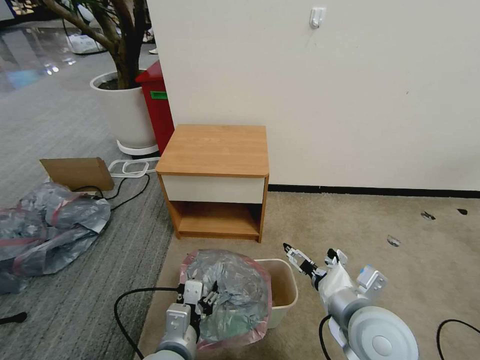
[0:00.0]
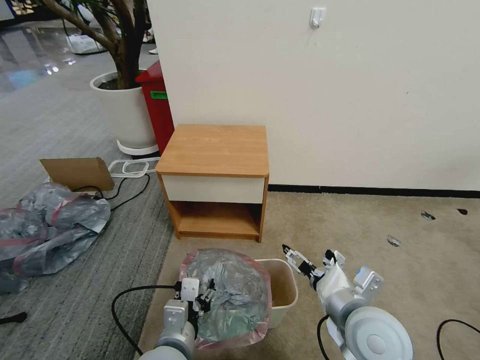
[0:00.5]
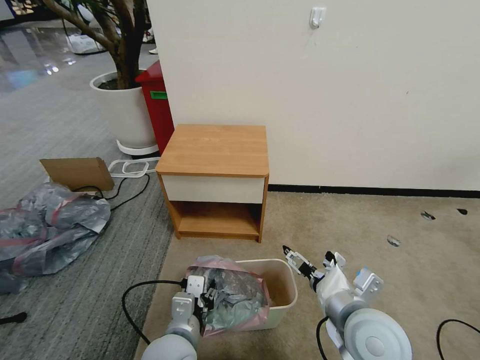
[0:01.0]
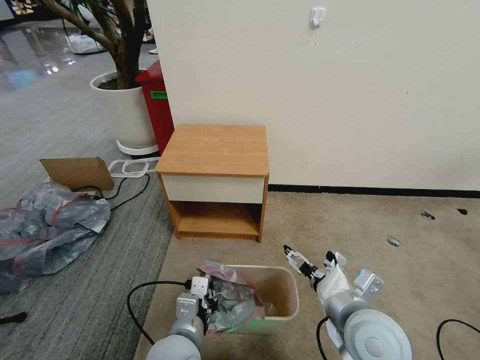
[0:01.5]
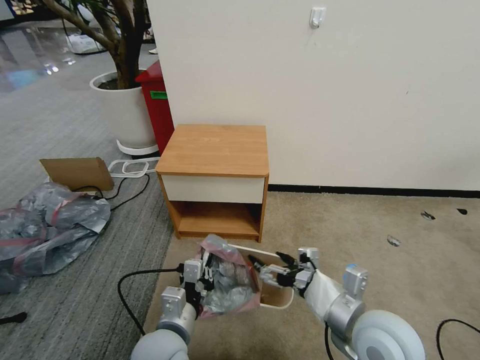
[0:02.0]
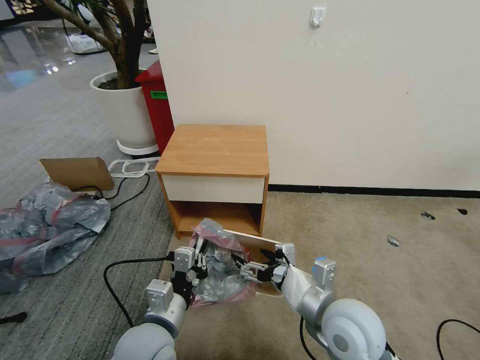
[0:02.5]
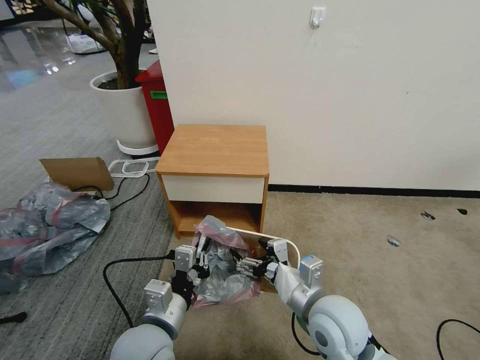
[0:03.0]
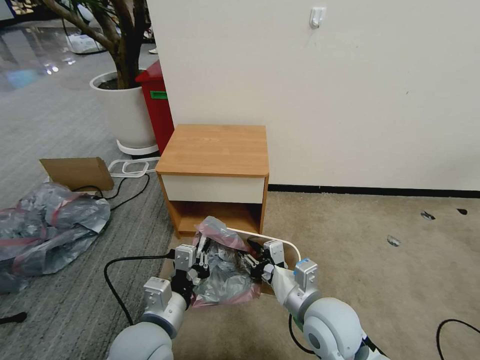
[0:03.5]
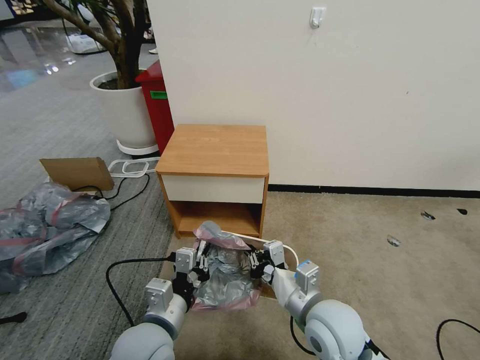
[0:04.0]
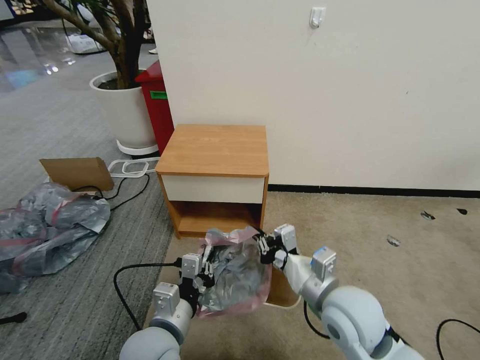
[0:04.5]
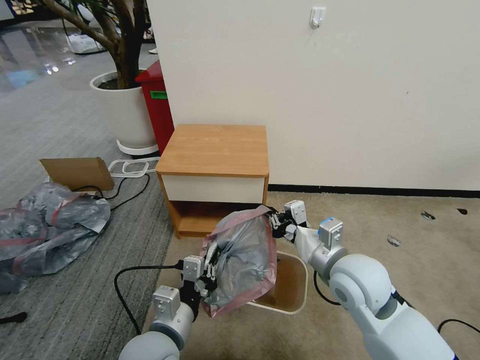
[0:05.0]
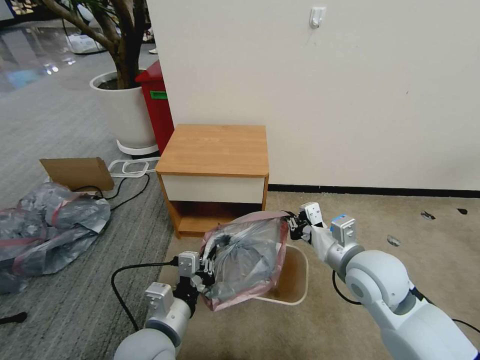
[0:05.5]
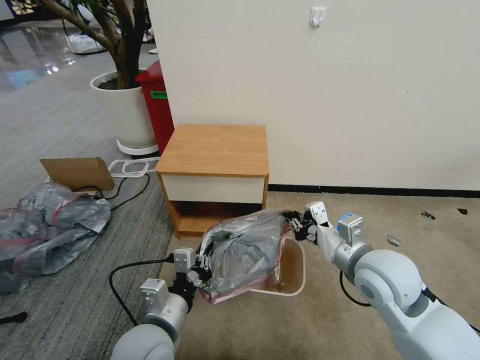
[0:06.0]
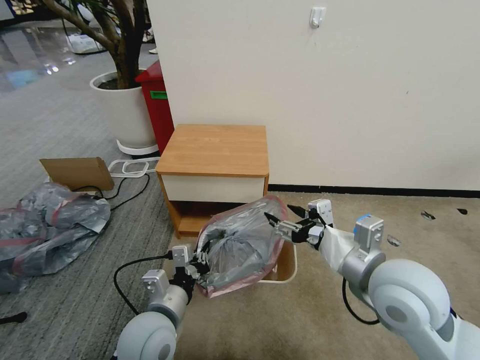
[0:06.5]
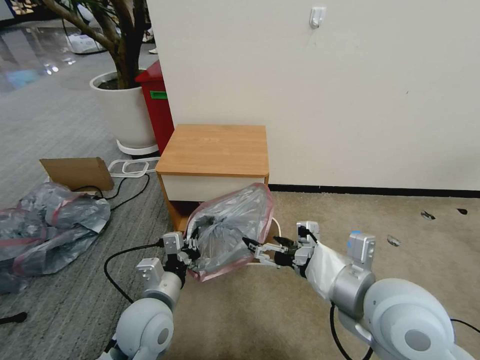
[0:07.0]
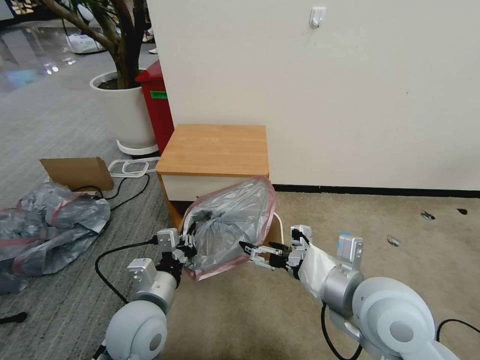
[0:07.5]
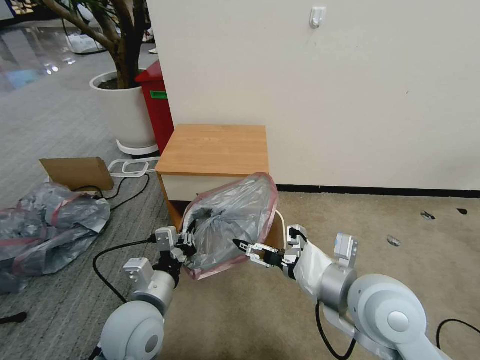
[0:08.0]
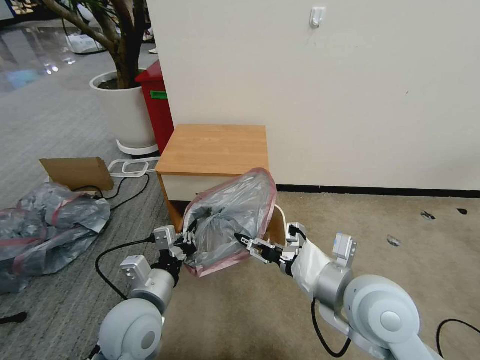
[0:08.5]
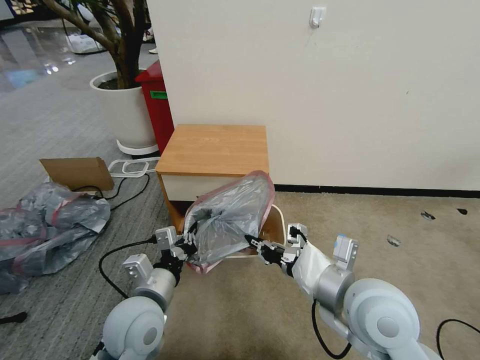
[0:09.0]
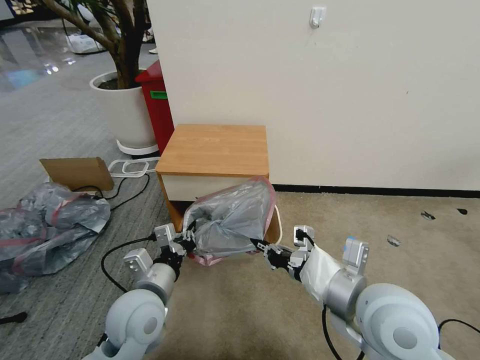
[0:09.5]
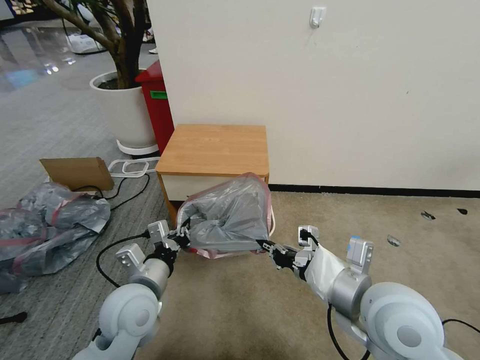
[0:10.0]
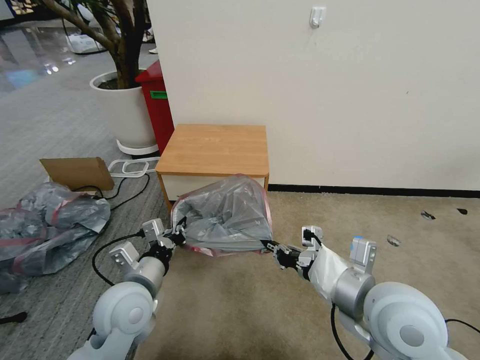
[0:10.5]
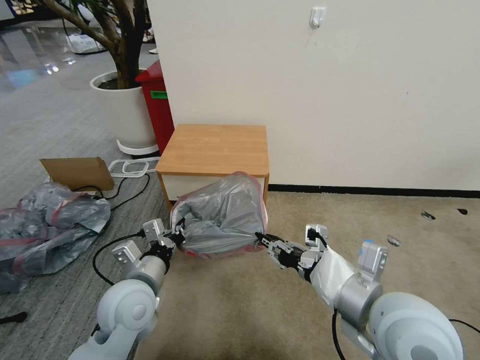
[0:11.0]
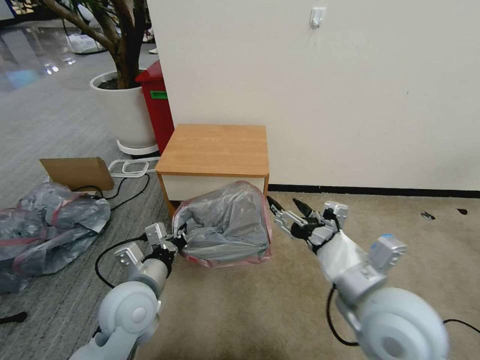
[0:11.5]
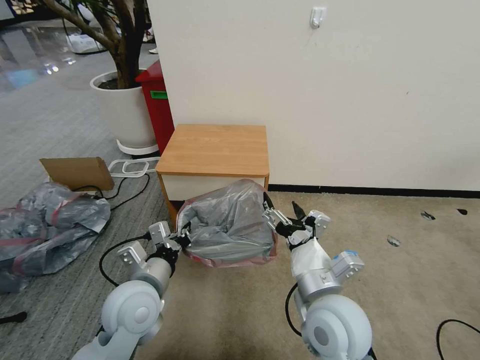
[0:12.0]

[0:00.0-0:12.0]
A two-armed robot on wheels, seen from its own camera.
Task of the whole recording: Pick up the garbage bag from the table and place it over the trash can.
0:00.0 to 0:02.0: The left gripper closes up.
0:02.0 to 0:04.0: The right gripper moves to the left, some 5 cm, and closes up.
0:04.0 to 0:06.0: The right gripper shifts some 15 cm to the right, upward and forward.
0:06.0 to 0:08.0: The right gripper shifts about 5 cm backward, and opens its fingers.
0:08.0 to 0:10.0: The right gripper closes its fingers.
0:10.0 to 0:12.0: The right gripper is displaced to the left and downward by some 10 cm, and opens.

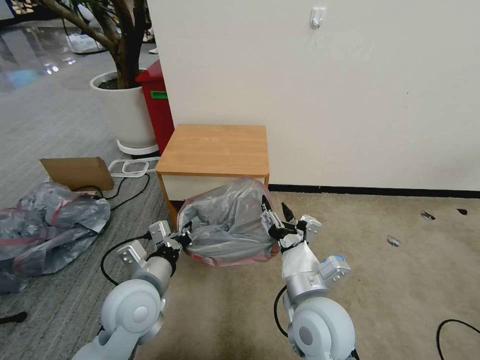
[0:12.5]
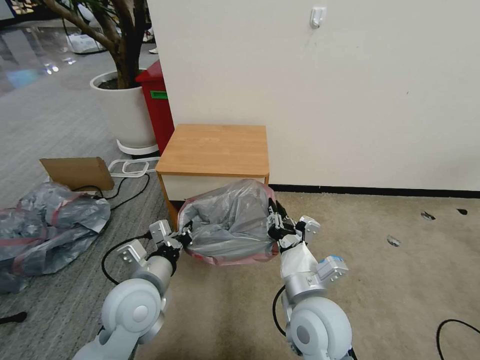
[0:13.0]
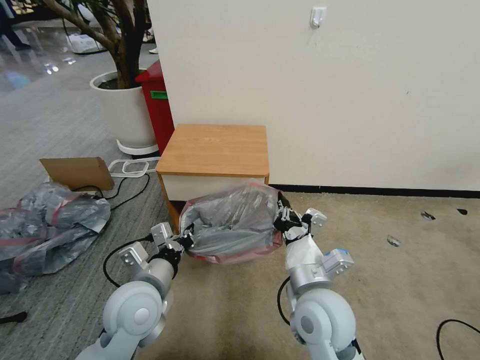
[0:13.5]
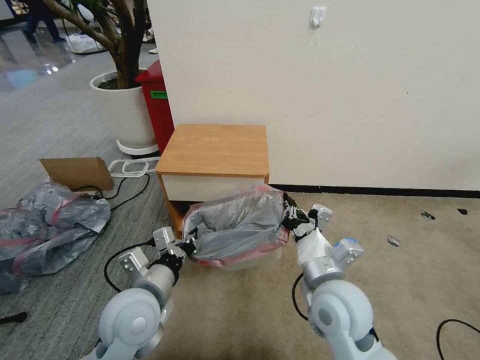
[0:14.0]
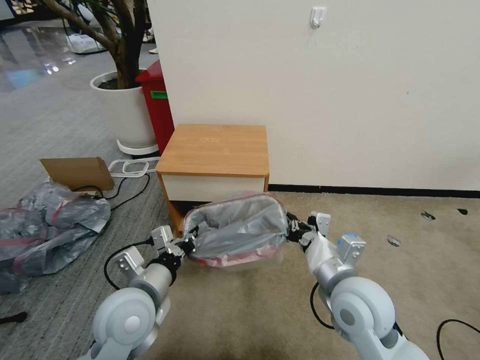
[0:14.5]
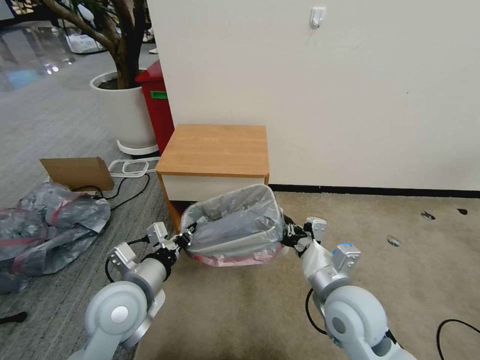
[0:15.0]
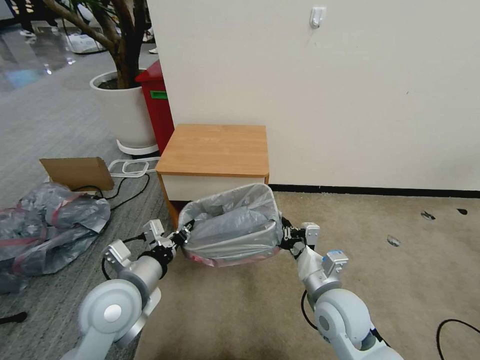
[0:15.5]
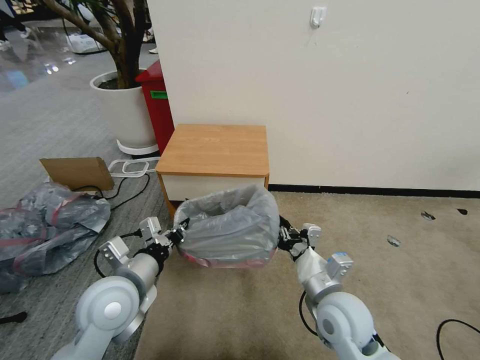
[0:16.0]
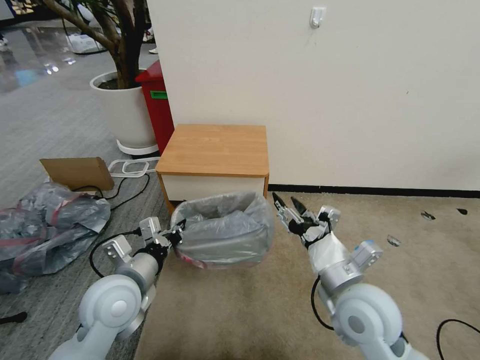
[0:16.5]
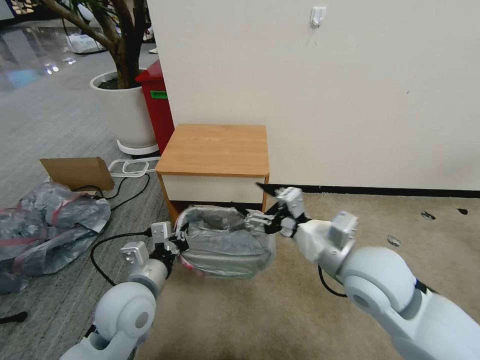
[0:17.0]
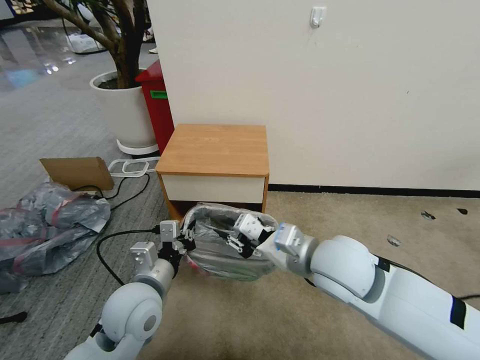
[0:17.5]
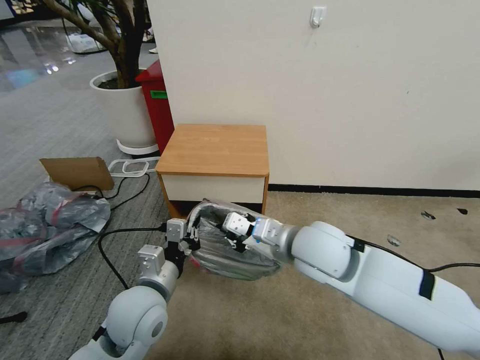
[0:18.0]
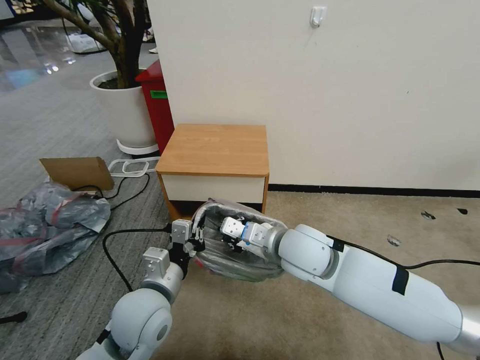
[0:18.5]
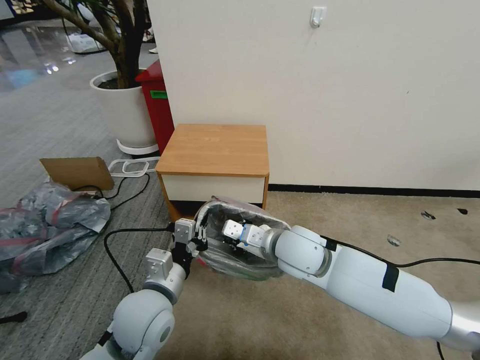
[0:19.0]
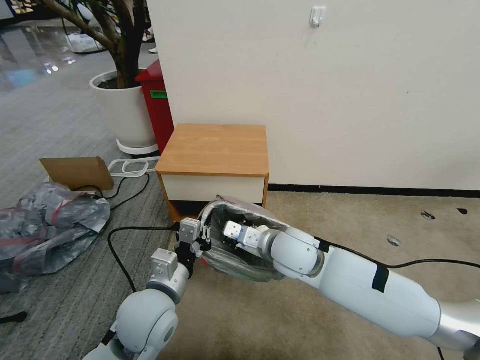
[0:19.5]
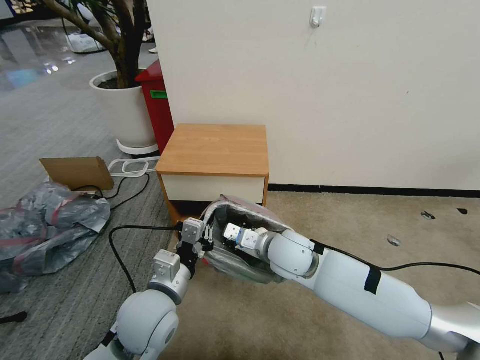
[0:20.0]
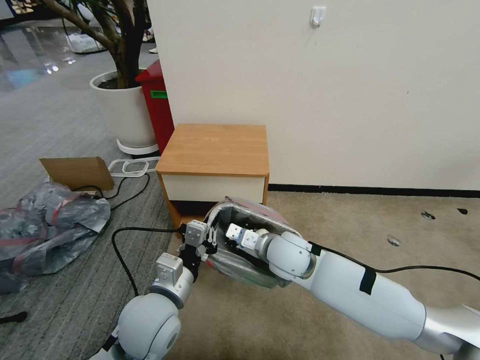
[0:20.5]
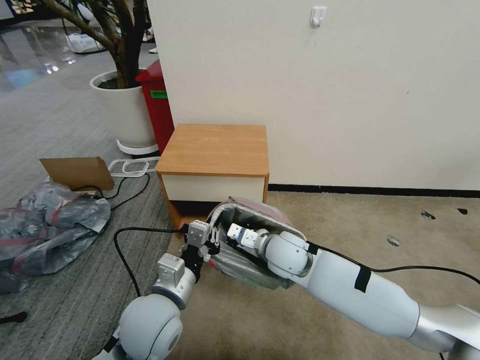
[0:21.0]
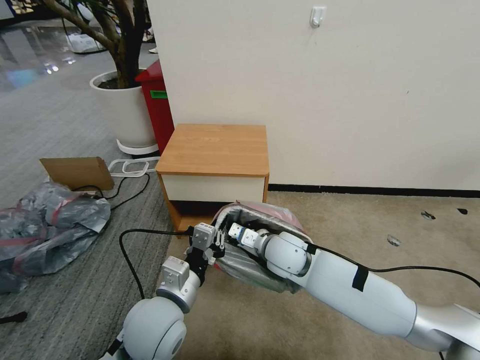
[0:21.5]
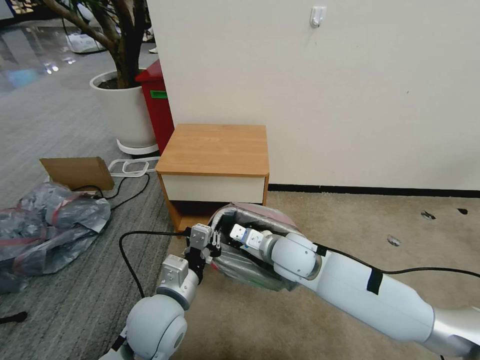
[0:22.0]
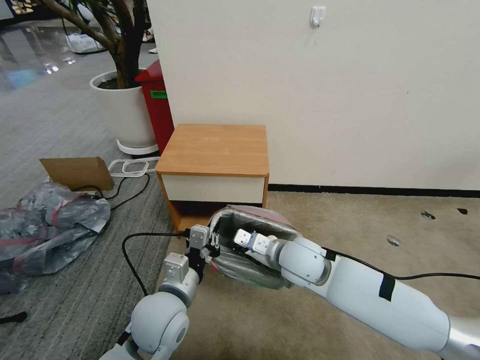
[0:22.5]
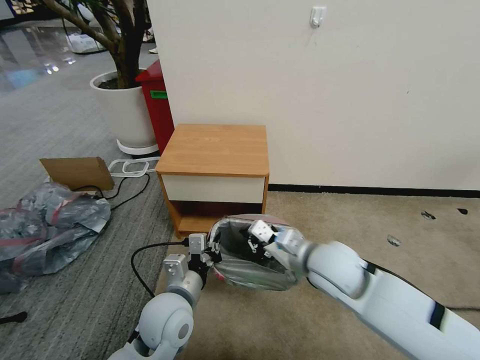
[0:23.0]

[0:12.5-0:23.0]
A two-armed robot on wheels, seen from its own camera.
Task of the whole recording: Pick up the garbage bag from the table and place it over the trash can.
0:12.5 to 0:14.5: The right gripper is displaced to the right by some 5 cm, and closes up.
0:14.5 to 0:16.5: The right gripper opens up.
0:16.5 to 0:19.0: The left gripper moves to the right, about 5 cm, while the right gripper shifts approximately 15 cm forward and to the left, and closes its fingers.
0:19.0 to 0:21.0: The right gripper is displaced downward by approximately 5 cm.
0:21.0 to 0:23.0: The right gripper travels to the right, backward and upward by about 10 cm.

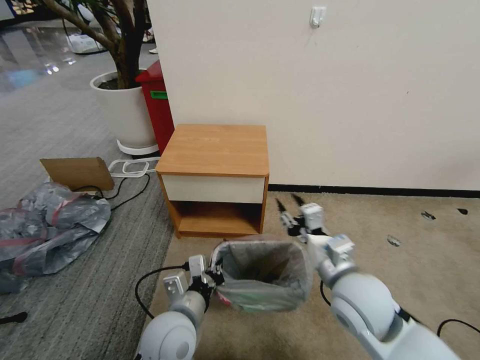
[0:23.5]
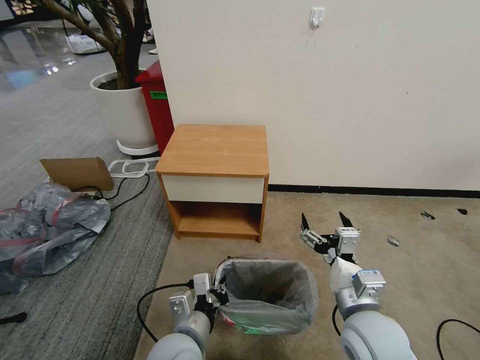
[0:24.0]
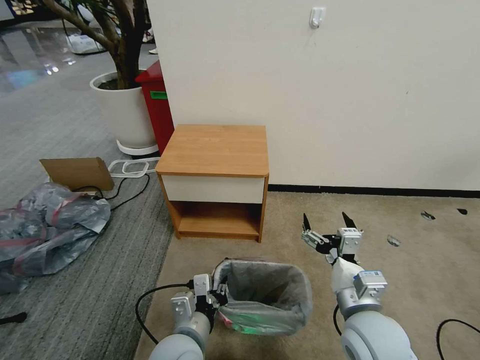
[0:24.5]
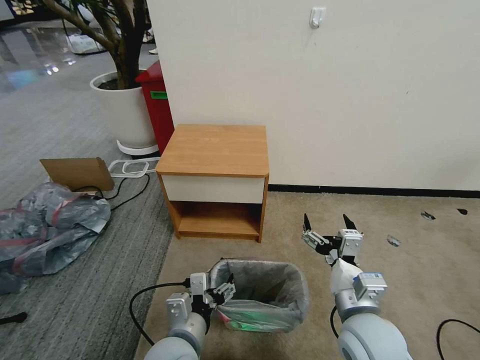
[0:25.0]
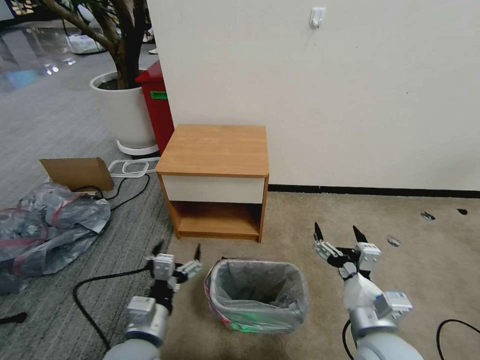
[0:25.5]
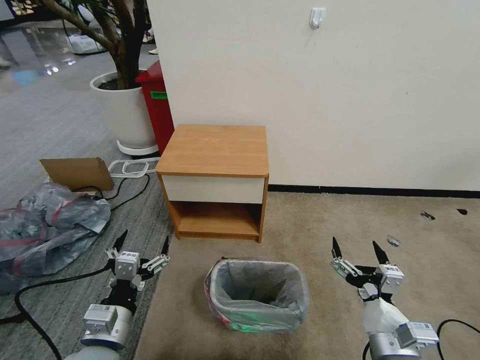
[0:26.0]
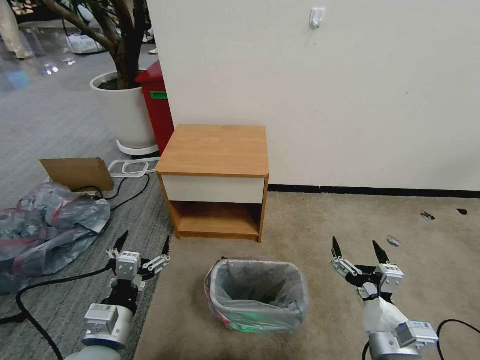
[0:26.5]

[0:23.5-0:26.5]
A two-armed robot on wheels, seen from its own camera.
Task of the whole recording: Pick up the garbage bag from the table and place it over the trash can.
0:23.5 to 0:25.0: The left gripper opens. The right gripper goes roughly 5 cm backward, and opens up.
0:25.0 to 0:26.5: The right gripper moves backward and to the right, approximately 10 cm, while the left gripper travels to the left by some 10 cm.
